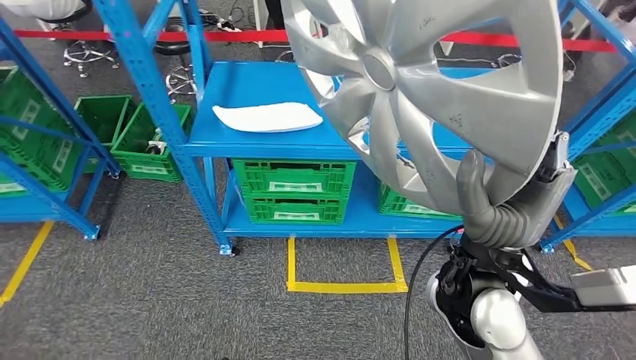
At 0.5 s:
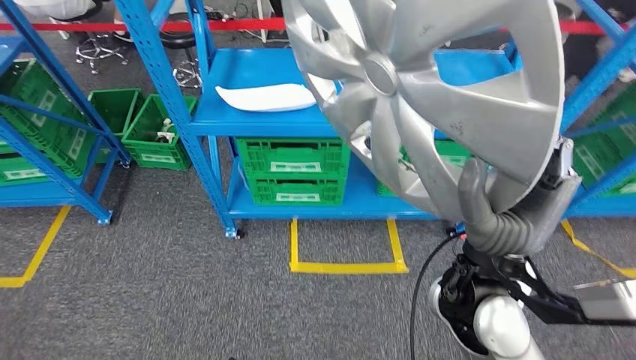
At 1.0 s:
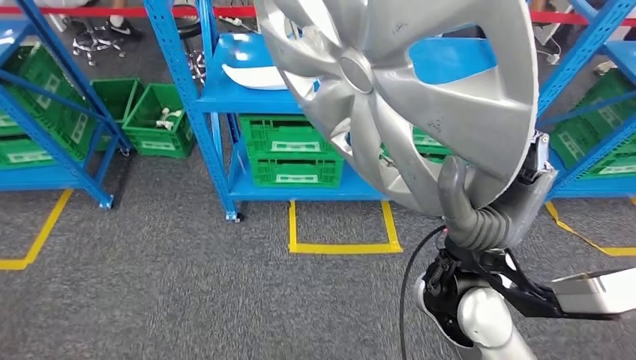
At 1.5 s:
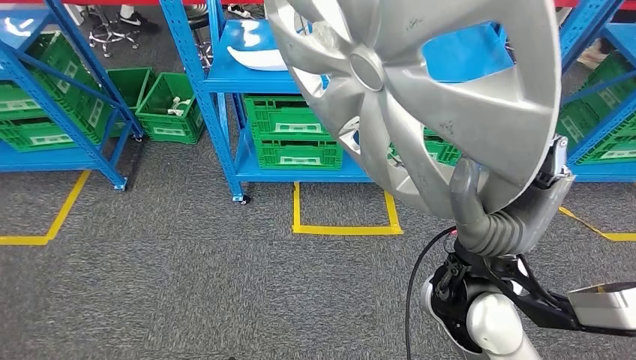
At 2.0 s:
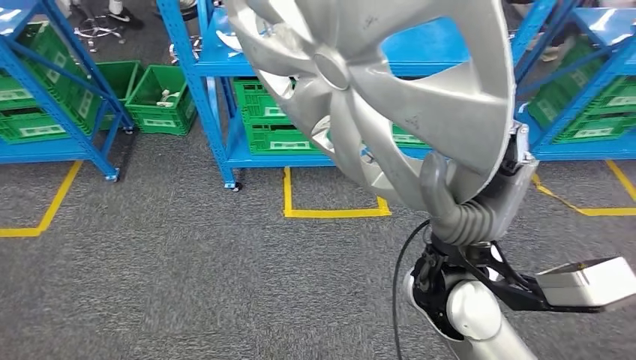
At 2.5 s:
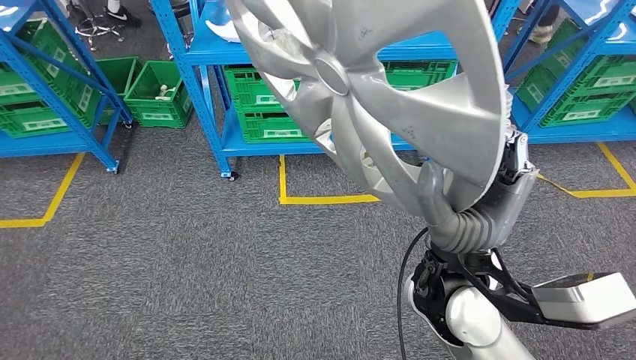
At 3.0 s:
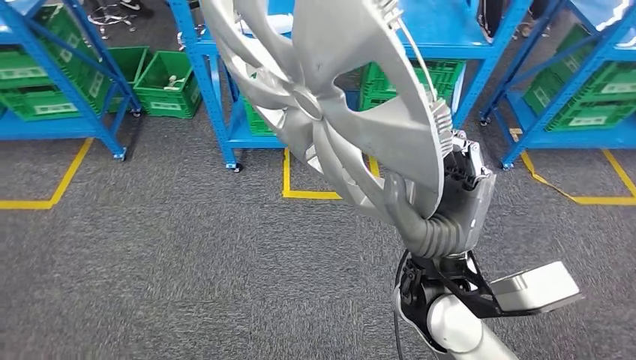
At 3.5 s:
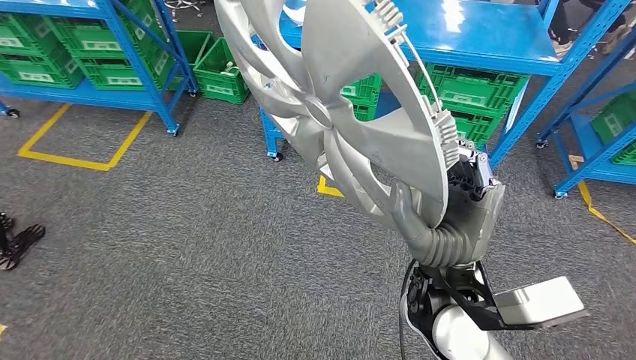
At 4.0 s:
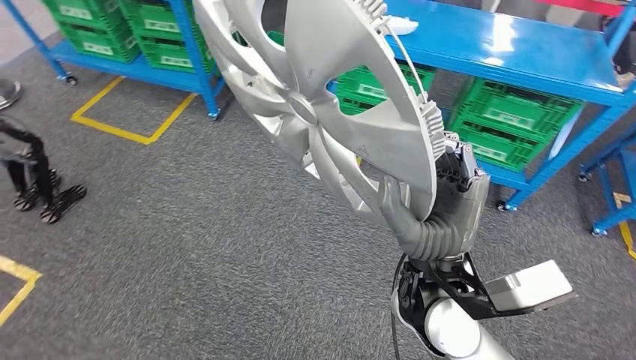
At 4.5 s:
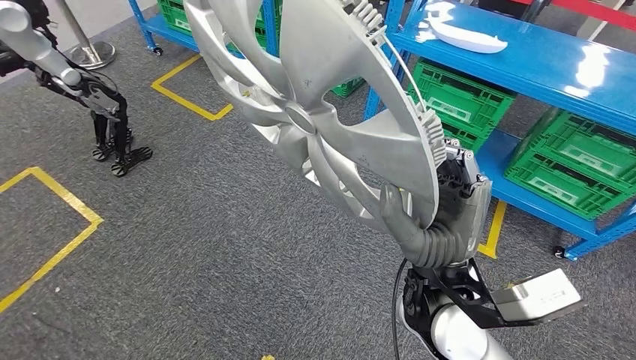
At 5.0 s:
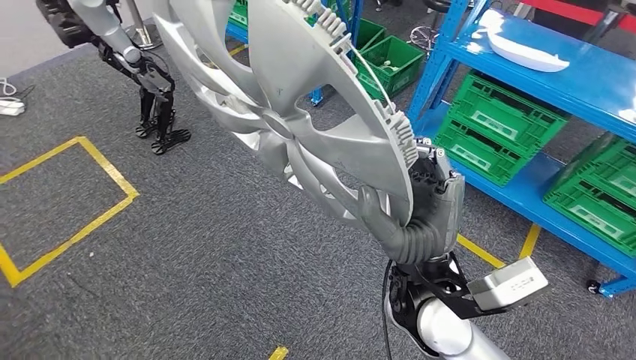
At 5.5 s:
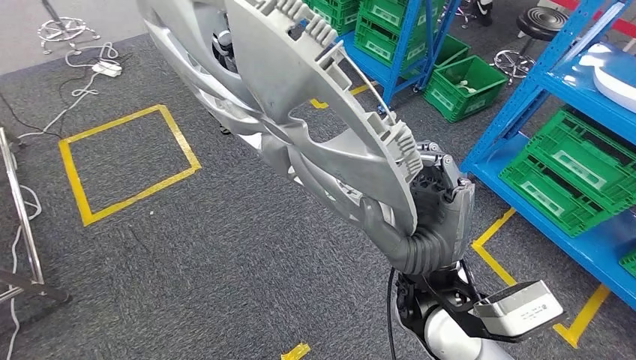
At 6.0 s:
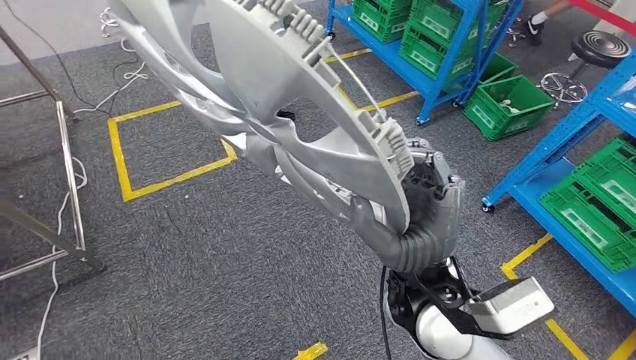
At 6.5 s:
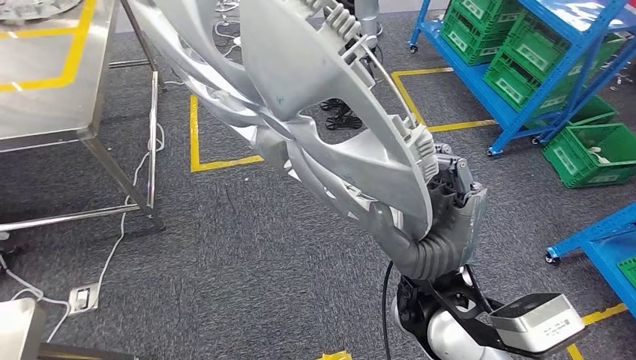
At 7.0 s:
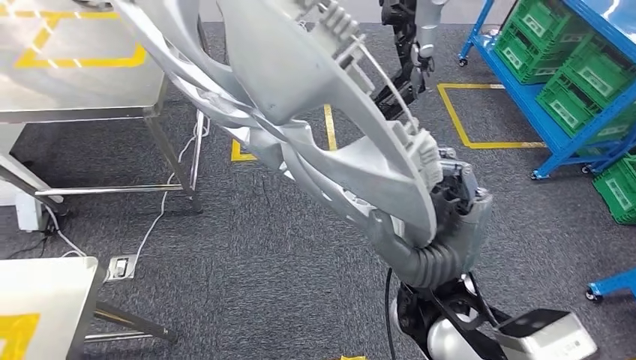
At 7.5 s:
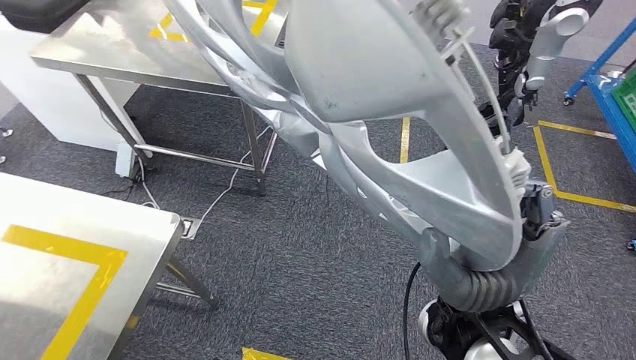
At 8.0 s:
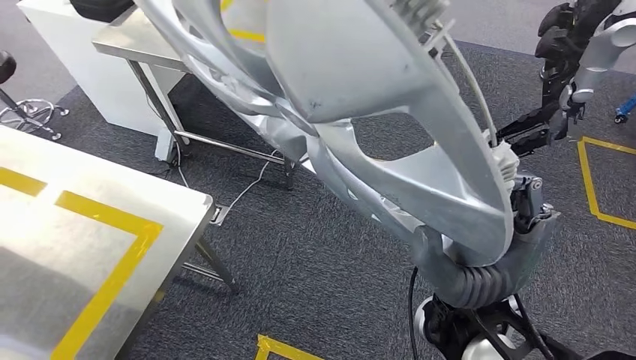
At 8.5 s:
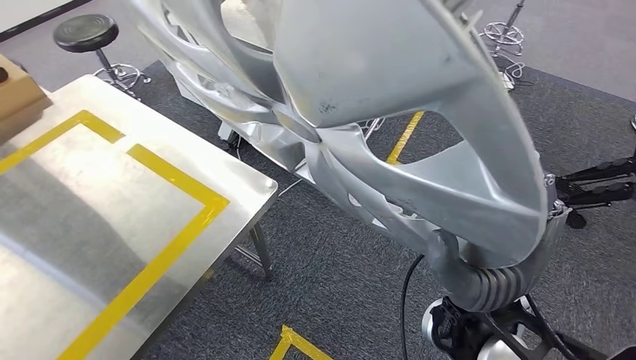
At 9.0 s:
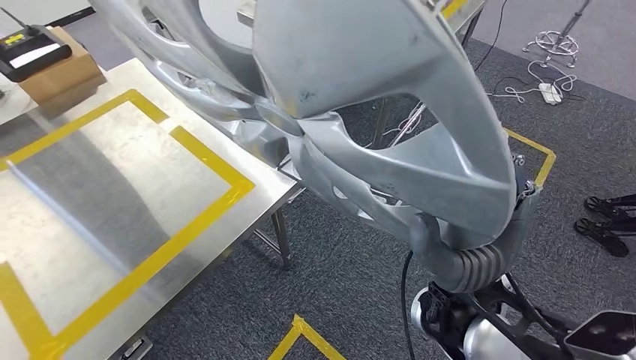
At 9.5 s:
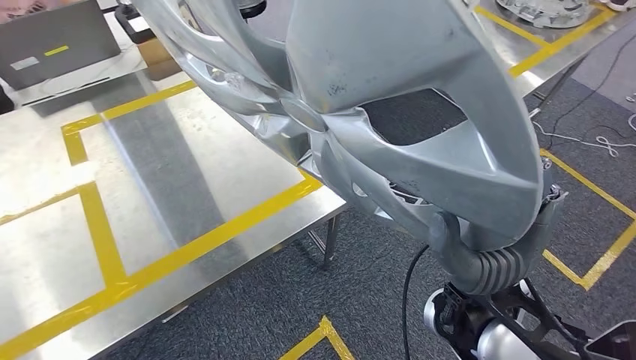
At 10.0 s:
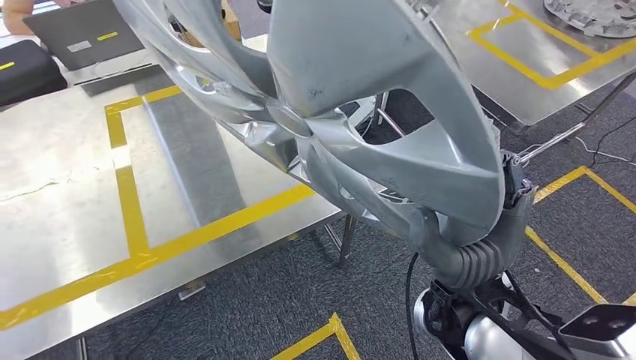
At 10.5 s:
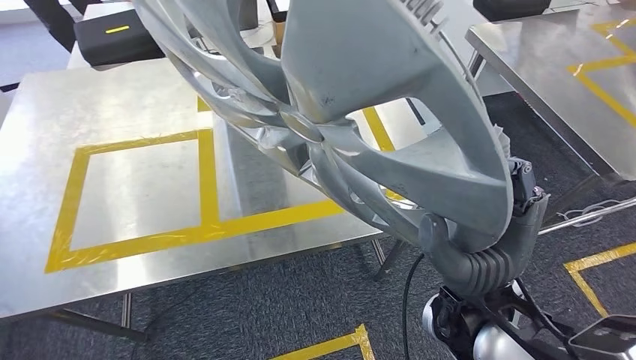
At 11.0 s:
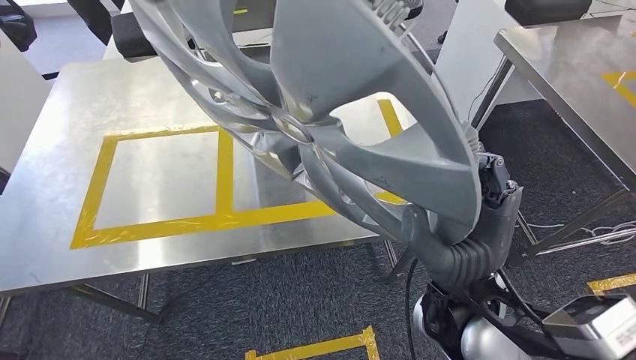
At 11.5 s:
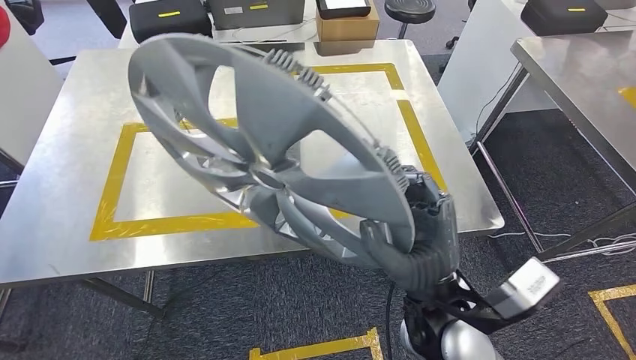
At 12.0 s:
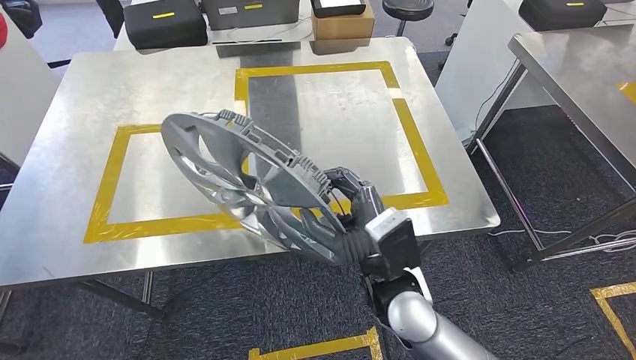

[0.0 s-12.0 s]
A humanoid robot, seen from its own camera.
Step, 0.0 to 9.5 s: Move the small component to the workbench.

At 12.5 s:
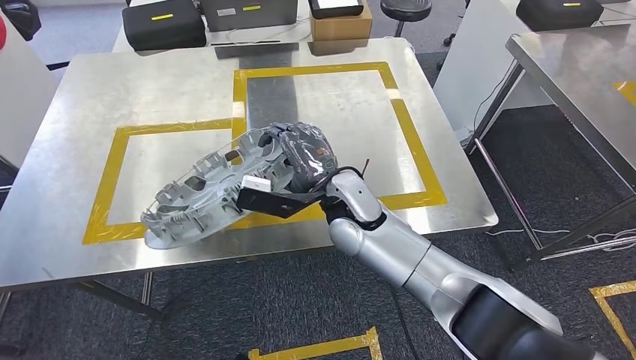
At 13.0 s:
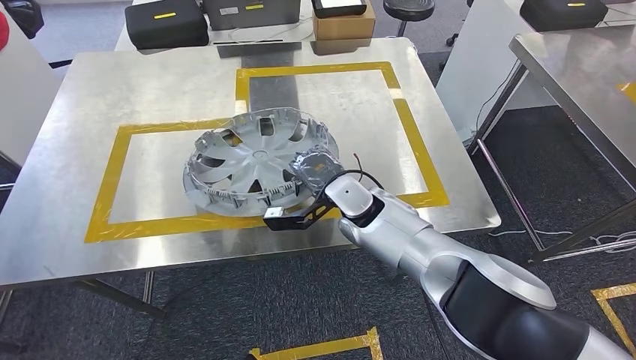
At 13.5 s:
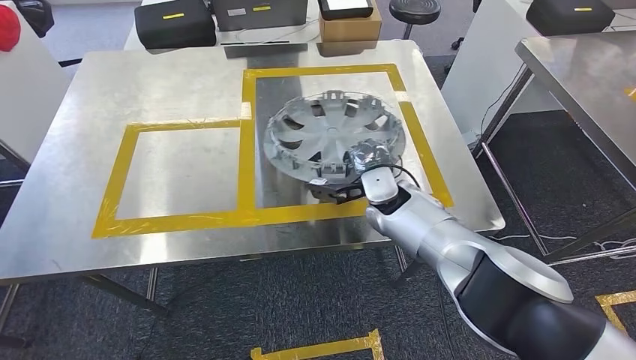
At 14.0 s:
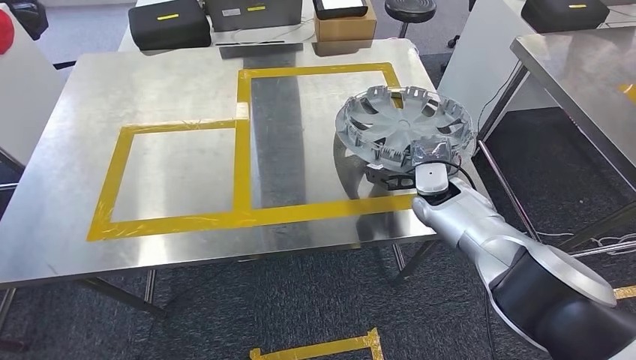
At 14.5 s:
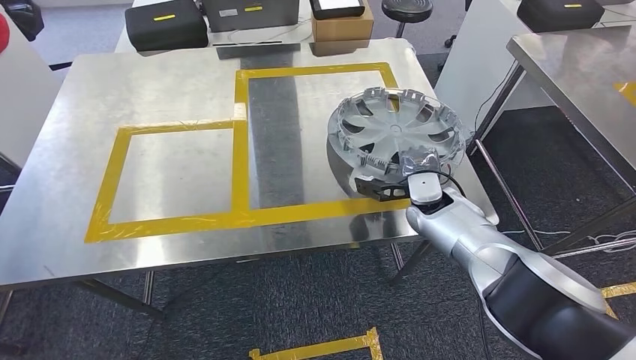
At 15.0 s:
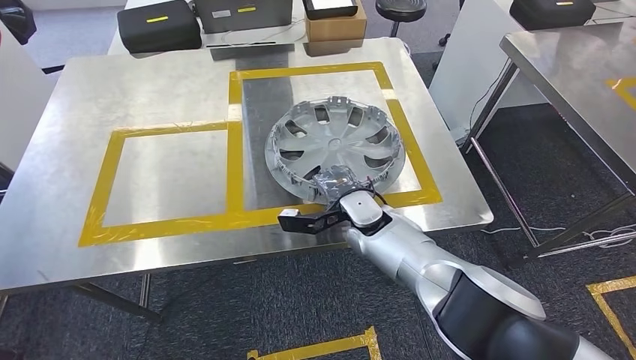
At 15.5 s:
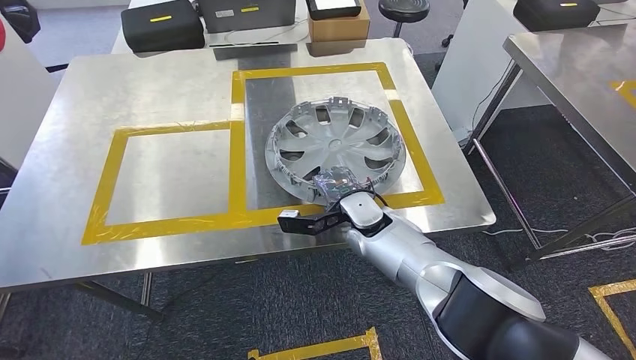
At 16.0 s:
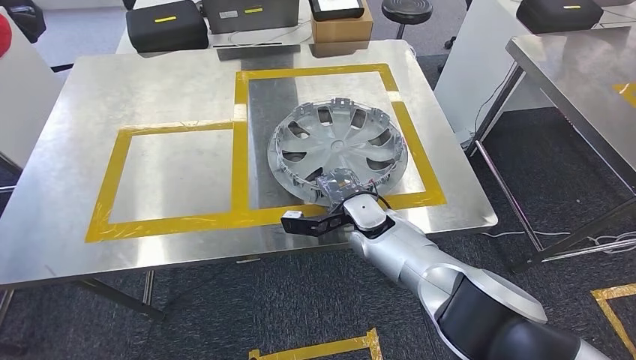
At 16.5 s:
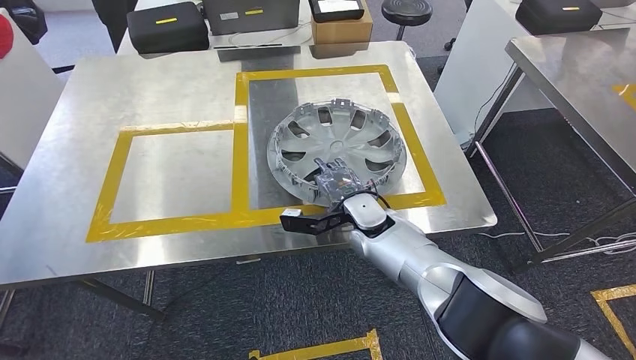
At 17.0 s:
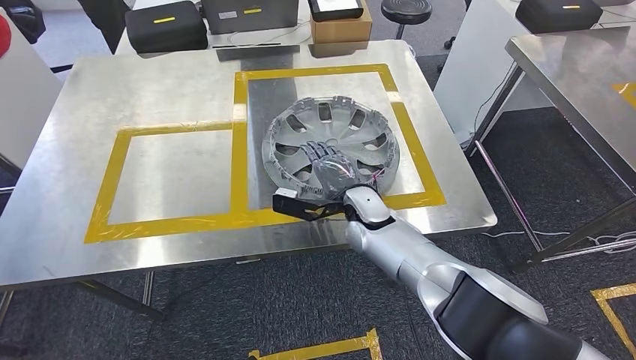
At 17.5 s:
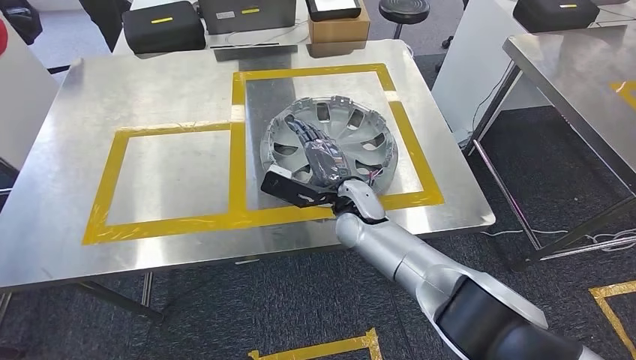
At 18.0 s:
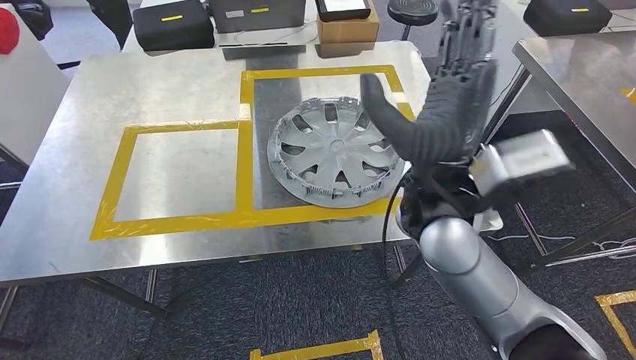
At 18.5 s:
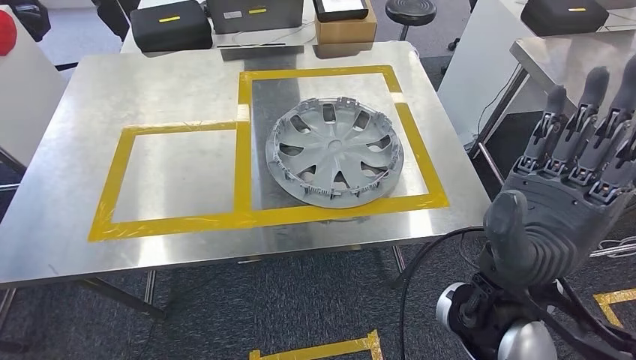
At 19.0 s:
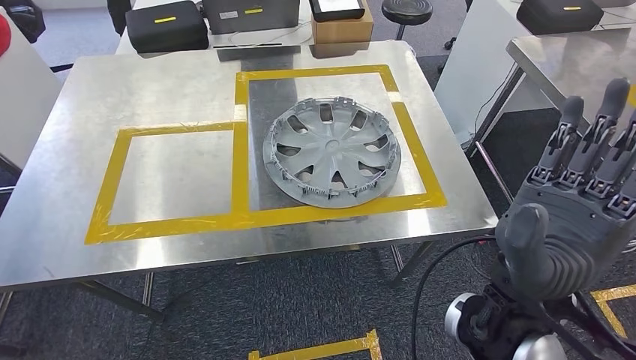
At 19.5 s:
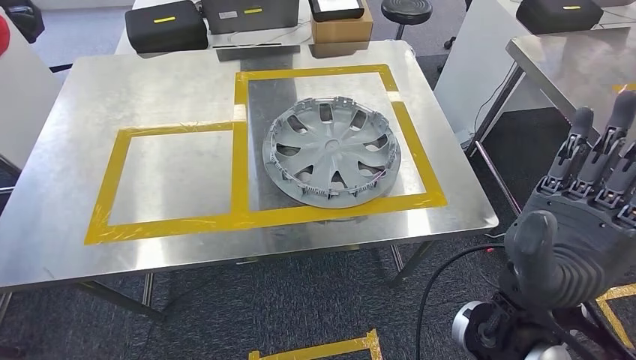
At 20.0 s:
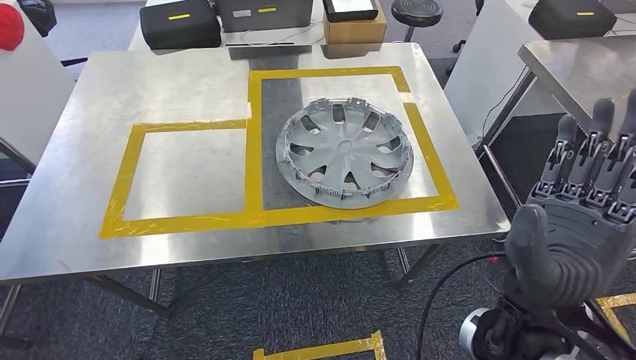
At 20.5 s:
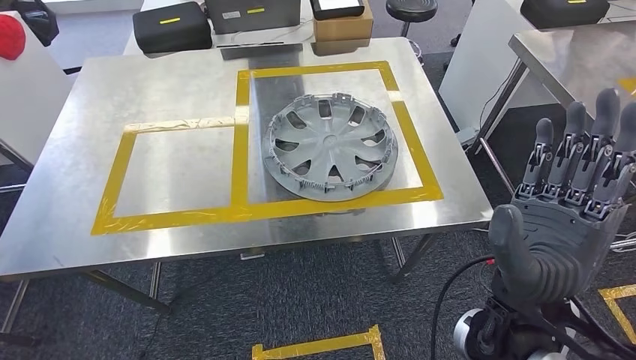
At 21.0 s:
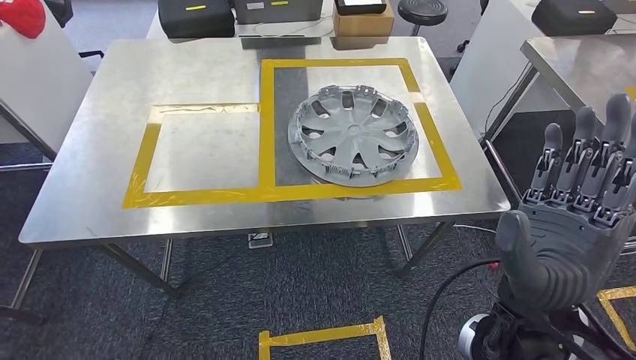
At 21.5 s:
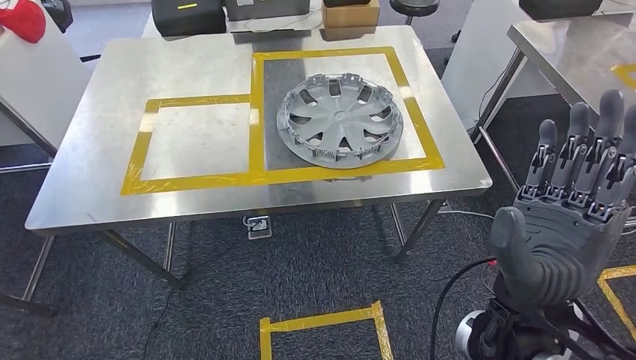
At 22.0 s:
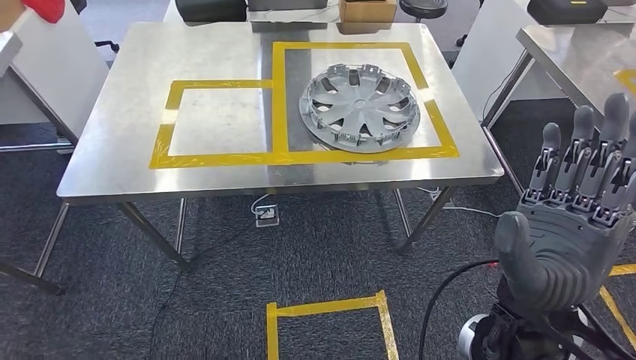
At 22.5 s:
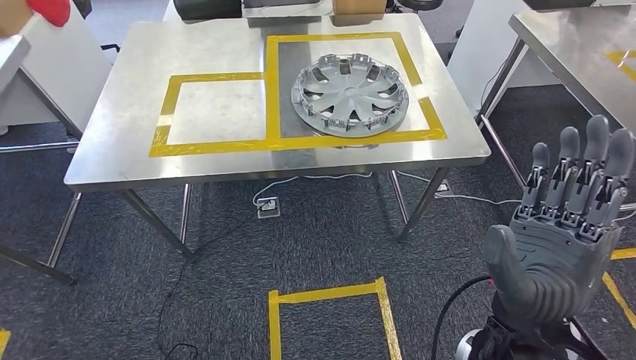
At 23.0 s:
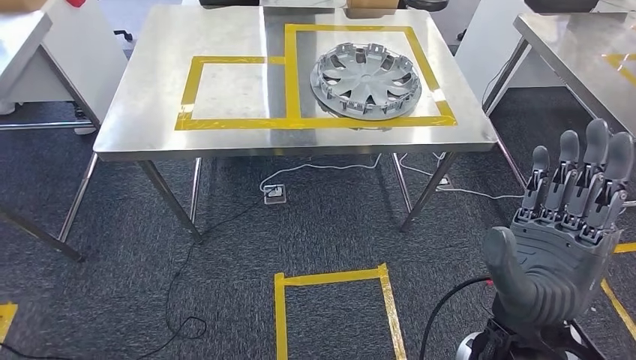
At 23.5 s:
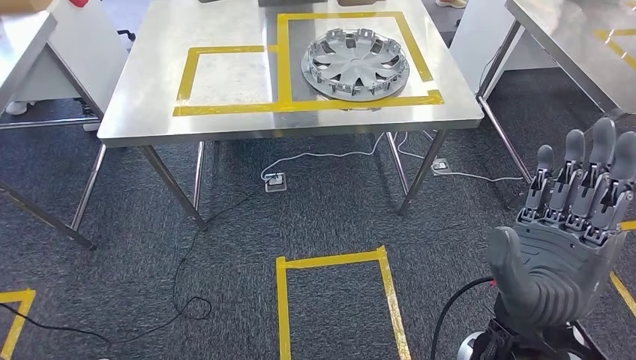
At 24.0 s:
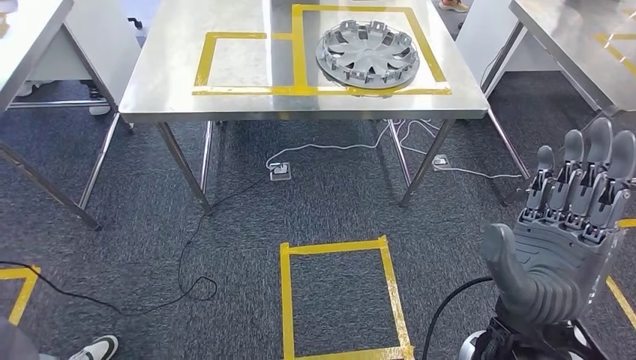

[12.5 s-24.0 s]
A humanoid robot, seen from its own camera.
Step, 12.5 to 18.0 s: Insert the small component into the corresponding slot on the workbench.
